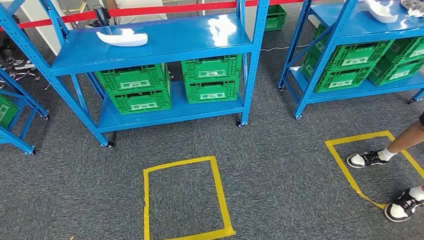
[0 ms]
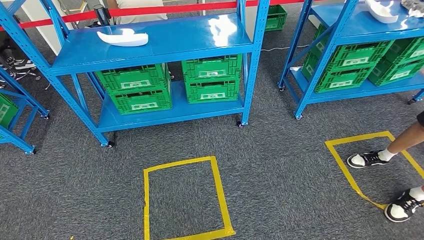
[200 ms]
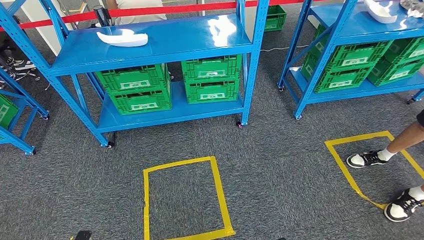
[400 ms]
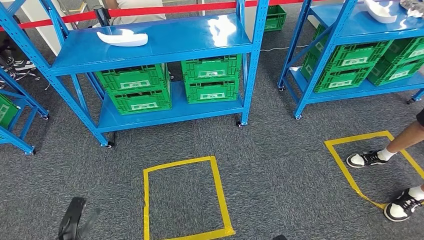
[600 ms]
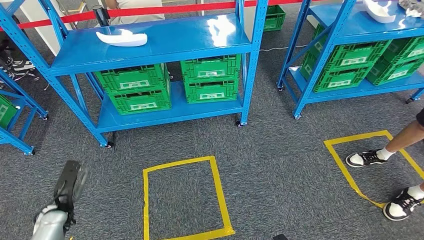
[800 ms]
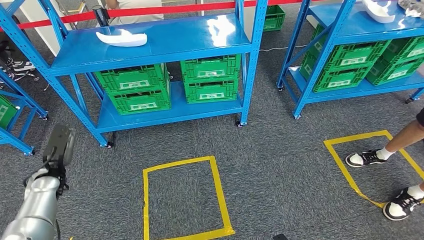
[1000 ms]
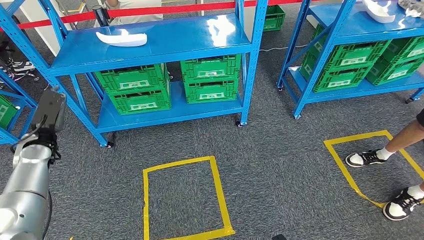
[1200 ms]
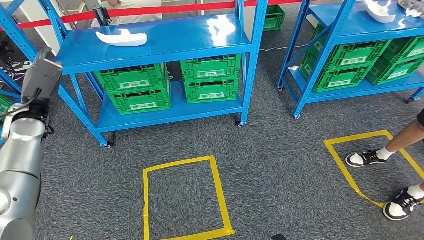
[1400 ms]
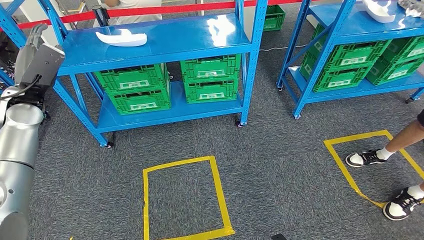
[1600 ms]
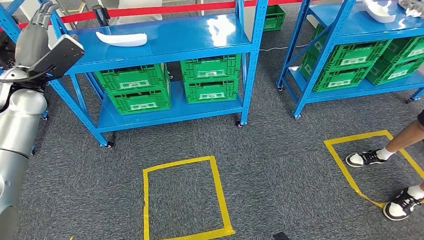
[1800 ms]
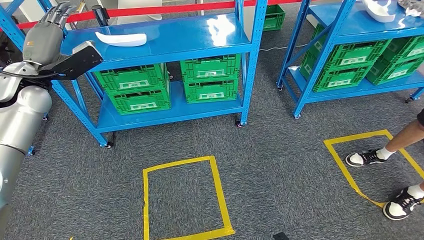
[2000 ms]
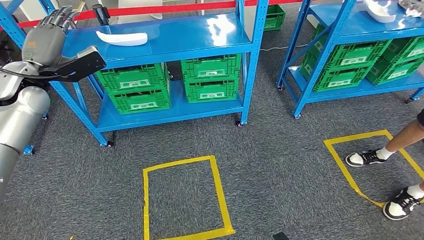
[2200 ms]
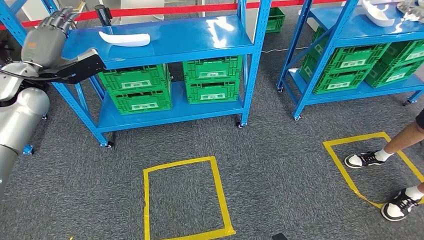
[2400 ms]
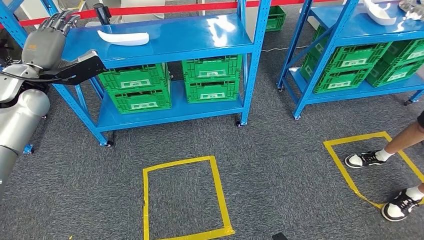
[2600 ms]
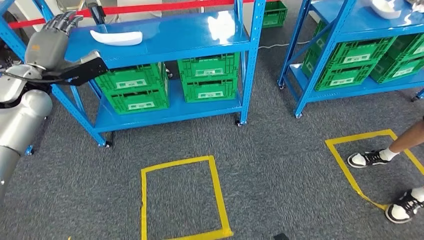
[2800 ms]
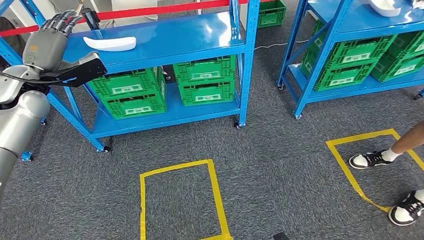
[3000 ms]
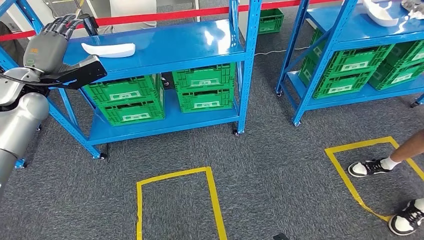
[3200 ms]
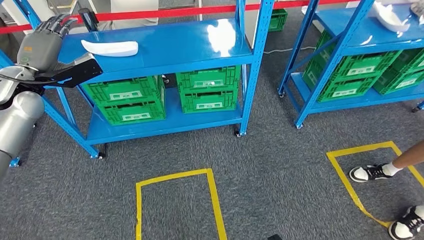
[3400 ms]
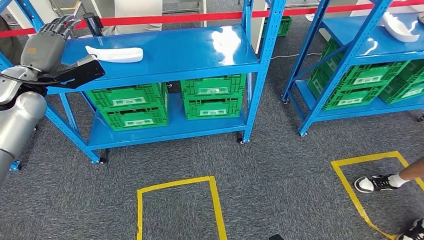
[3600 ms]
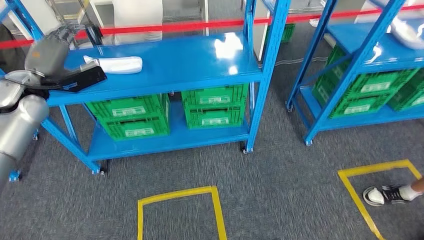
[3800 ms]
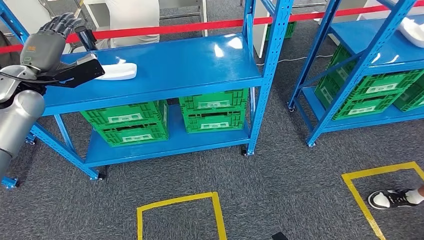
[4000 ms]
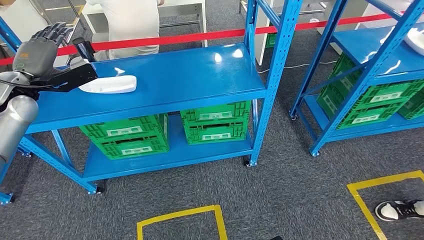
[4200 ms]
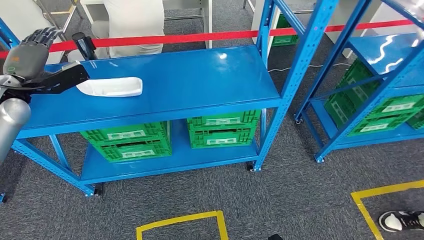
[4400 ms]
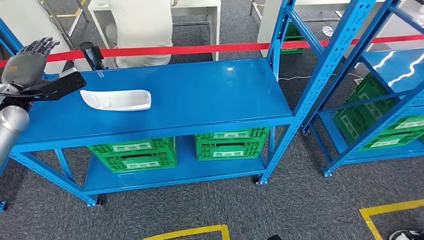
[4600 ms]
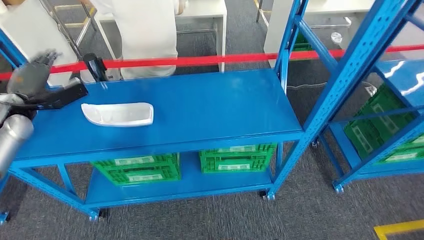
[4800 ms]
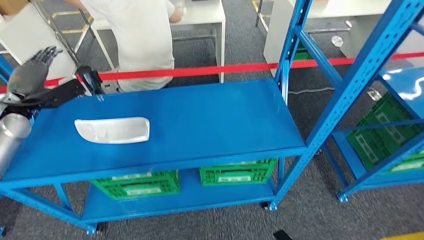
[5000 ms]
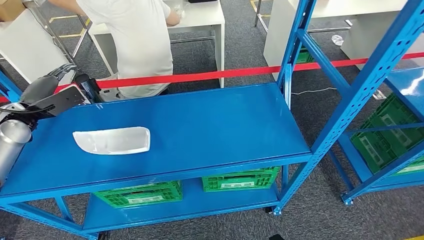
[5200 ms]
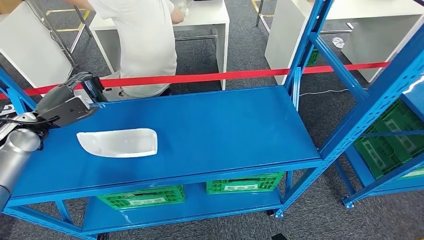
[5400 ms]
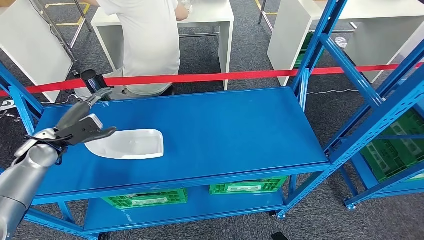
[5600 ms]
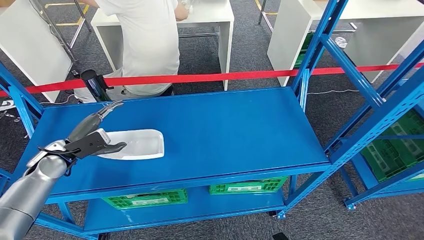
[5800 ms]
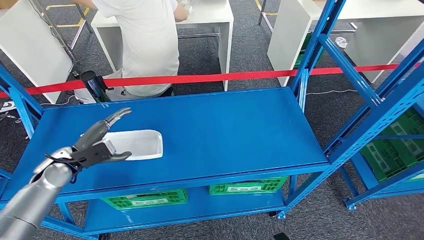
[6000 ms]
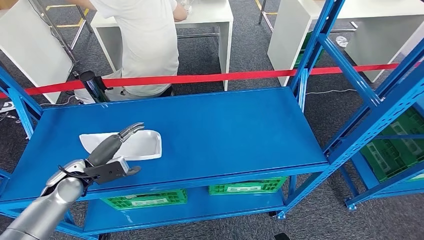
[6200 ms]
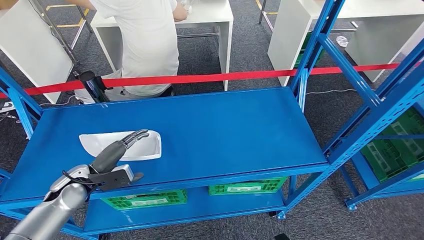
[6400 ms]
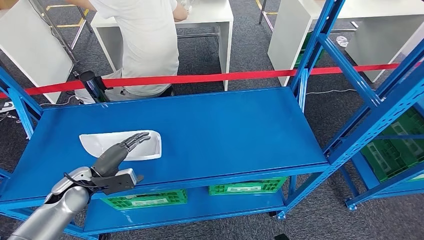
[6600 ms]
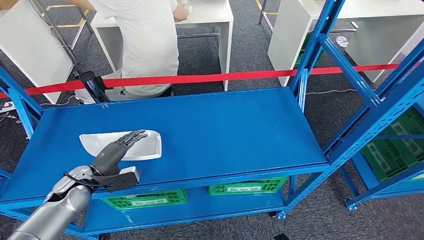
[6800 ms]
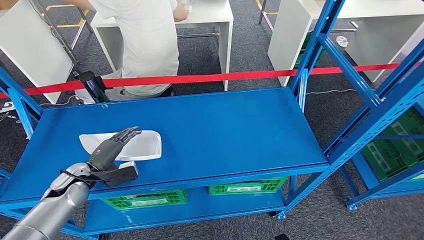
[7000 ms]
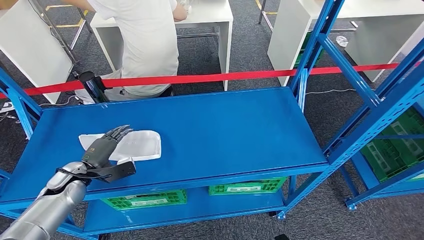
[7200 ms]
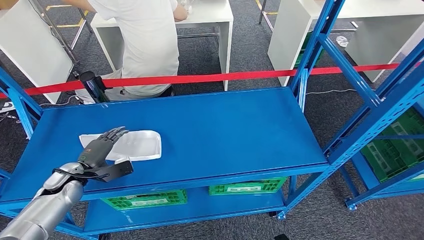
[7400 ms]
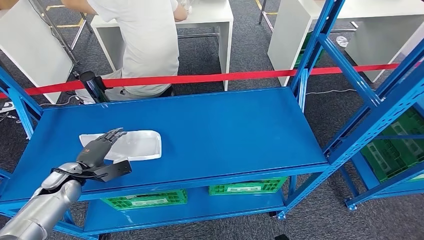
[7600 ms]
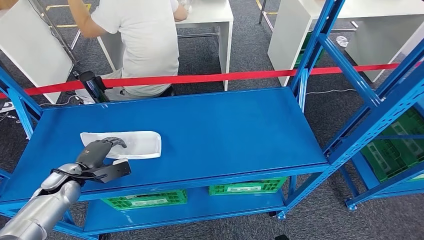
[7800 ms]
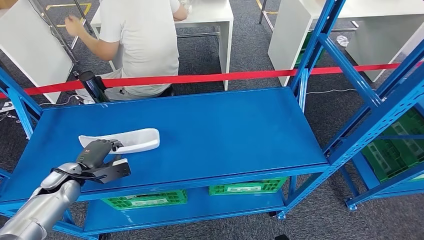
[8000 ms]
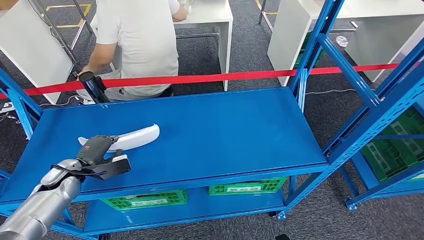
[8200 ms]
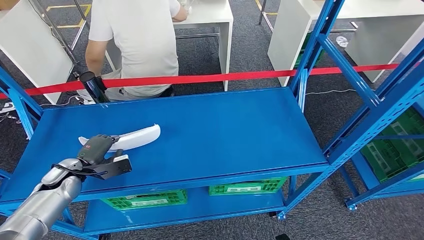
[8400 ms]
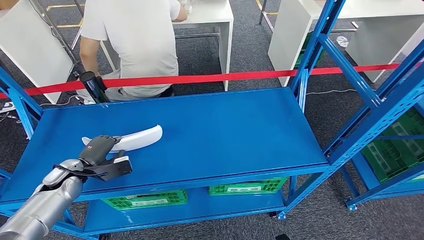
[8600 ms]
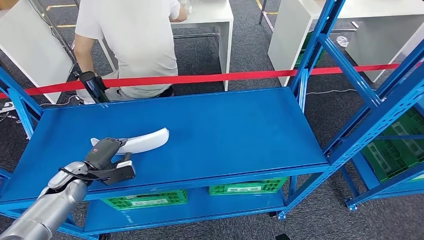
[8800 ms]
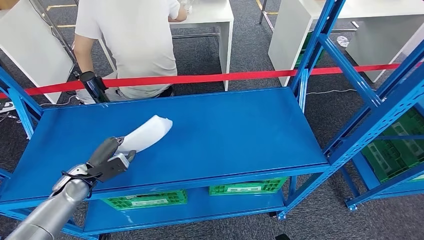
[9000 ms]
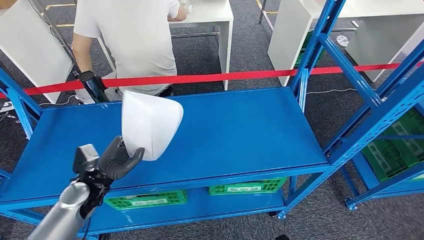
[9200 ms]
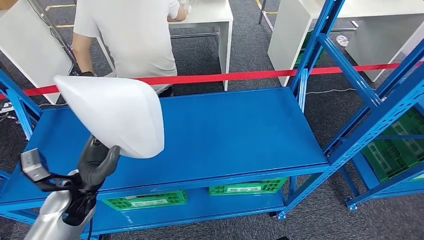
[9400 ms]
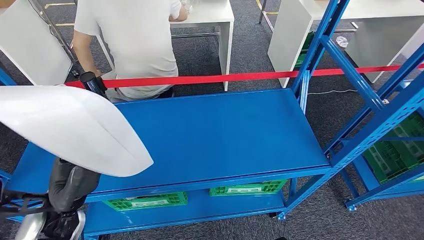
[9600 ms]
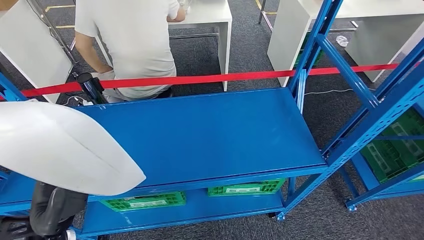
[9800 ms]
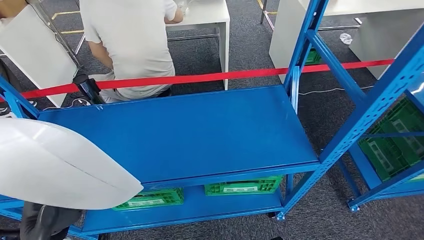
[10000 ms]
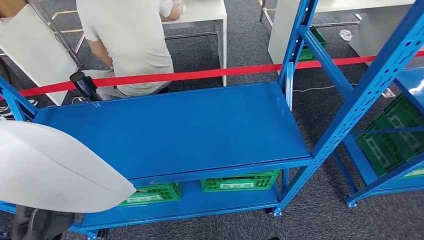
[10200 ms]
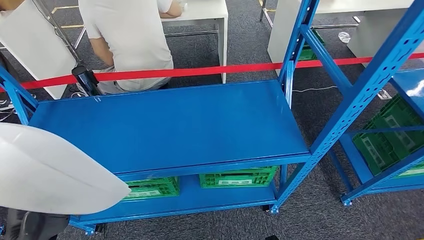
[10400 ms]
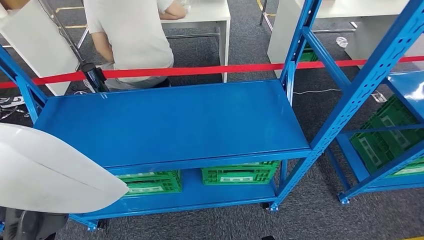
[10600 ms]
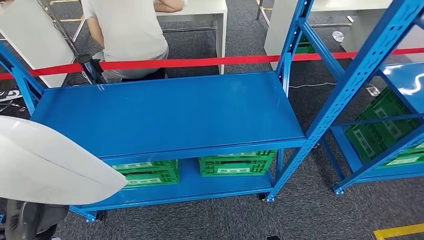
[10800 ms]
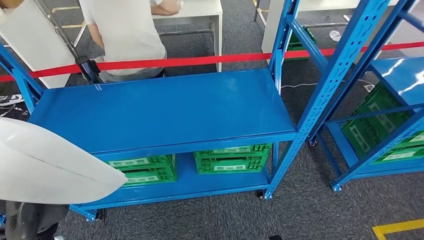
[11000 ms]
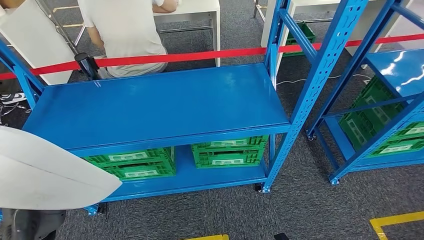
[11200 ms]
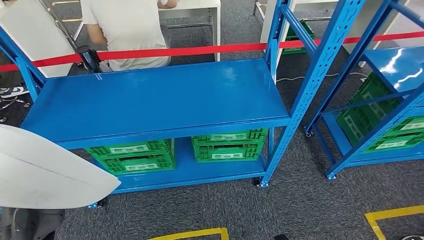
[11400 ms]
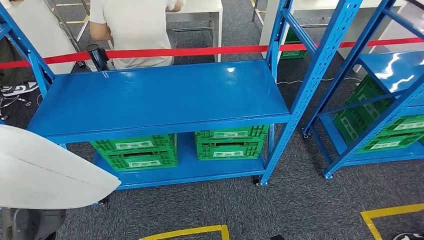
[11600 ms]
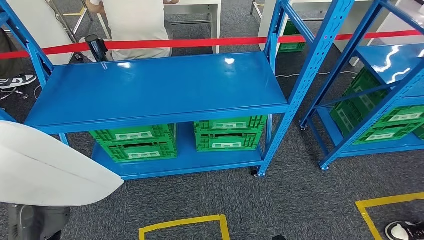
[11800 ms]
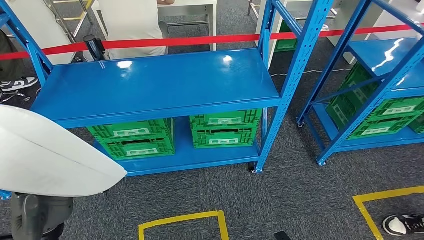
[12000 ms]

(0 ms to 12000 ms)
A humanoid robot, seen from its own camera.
Step, 0 ms - 11200 ms: Pick up the small component from the shelf.
6000 ms - 7600 ms: The left hand moves downward, roughly 5 cm.

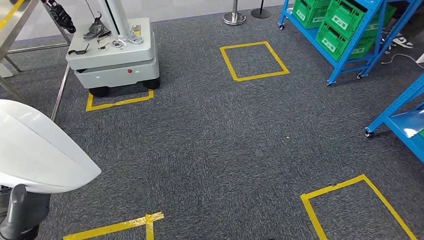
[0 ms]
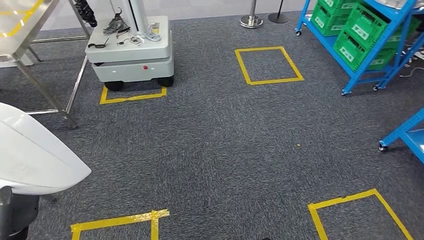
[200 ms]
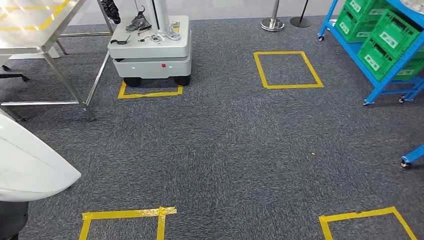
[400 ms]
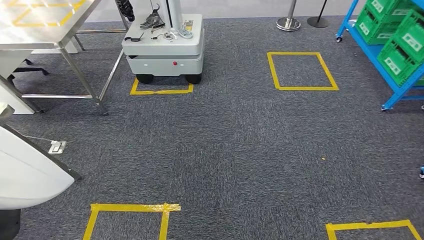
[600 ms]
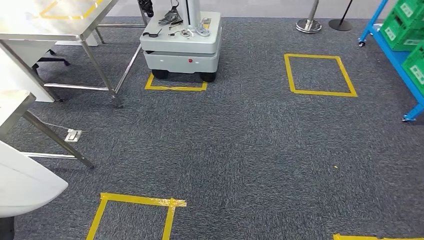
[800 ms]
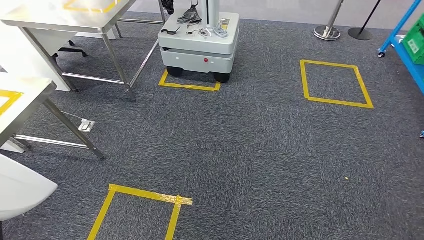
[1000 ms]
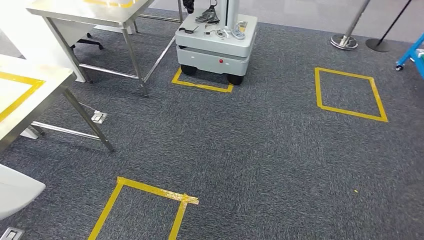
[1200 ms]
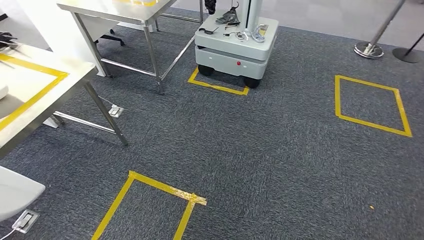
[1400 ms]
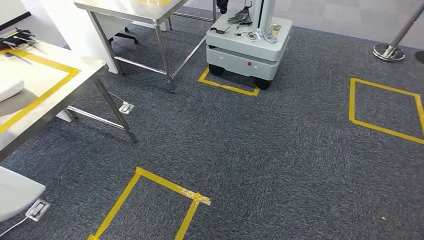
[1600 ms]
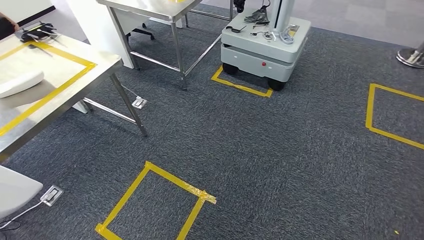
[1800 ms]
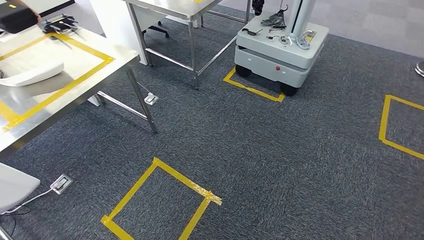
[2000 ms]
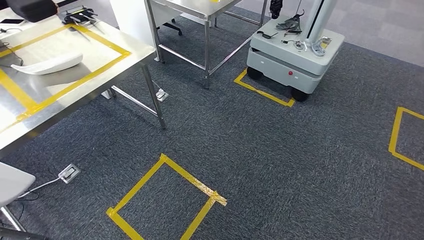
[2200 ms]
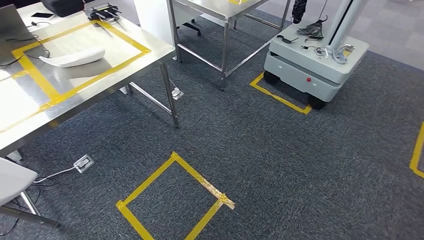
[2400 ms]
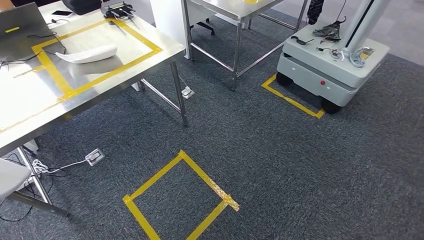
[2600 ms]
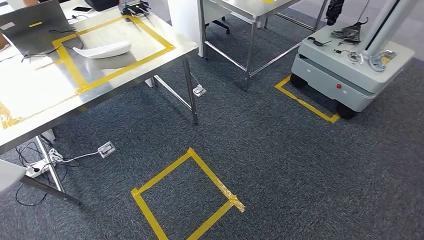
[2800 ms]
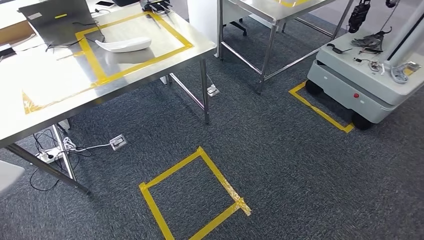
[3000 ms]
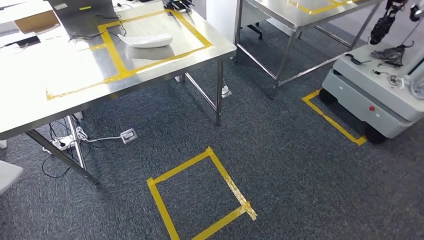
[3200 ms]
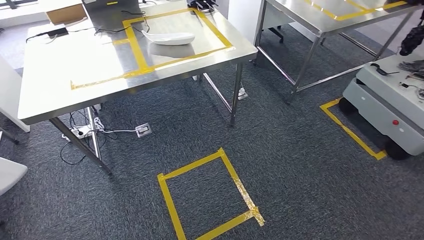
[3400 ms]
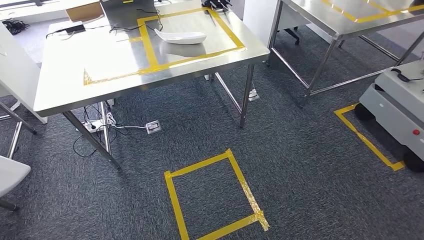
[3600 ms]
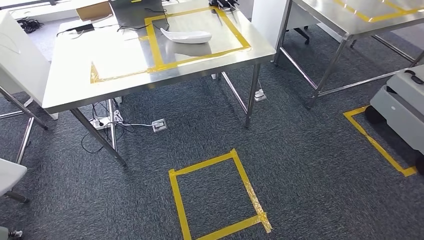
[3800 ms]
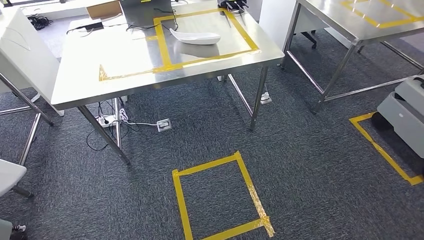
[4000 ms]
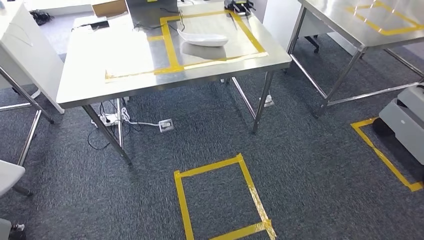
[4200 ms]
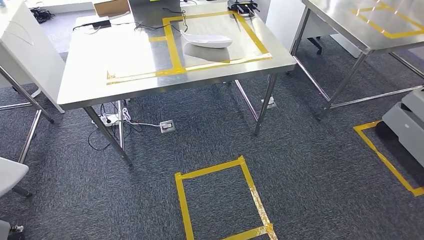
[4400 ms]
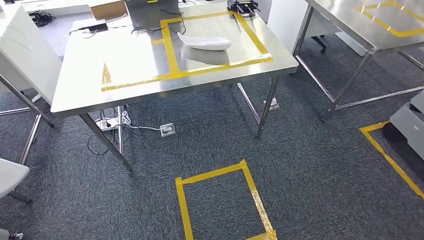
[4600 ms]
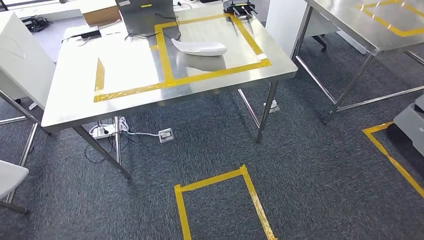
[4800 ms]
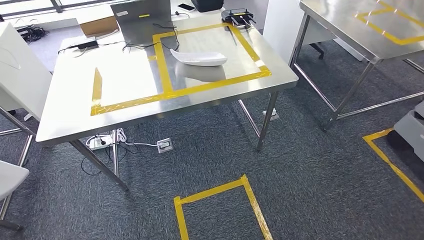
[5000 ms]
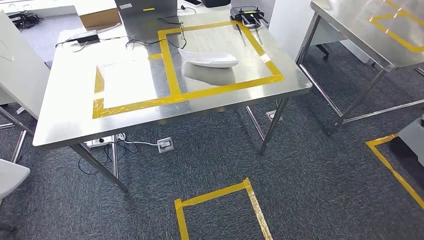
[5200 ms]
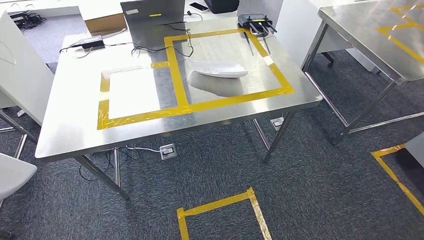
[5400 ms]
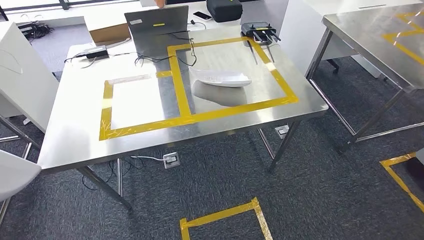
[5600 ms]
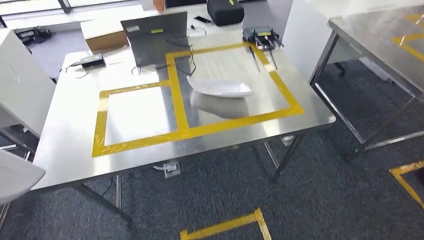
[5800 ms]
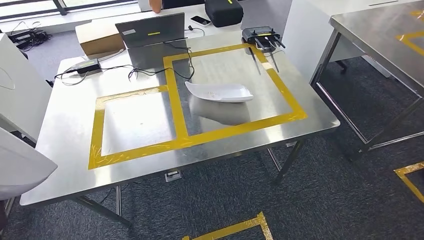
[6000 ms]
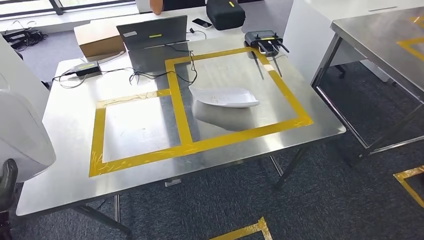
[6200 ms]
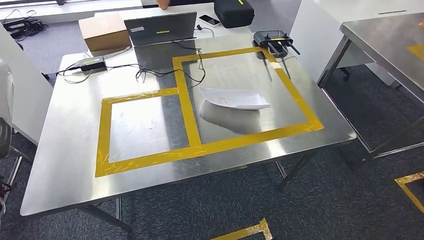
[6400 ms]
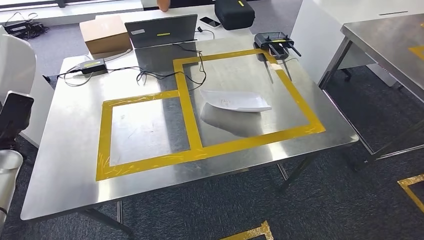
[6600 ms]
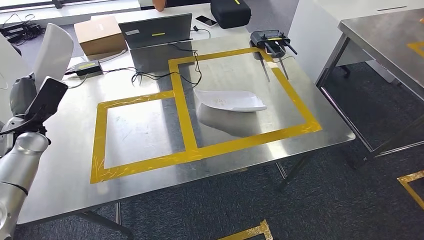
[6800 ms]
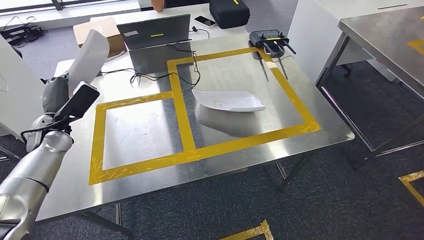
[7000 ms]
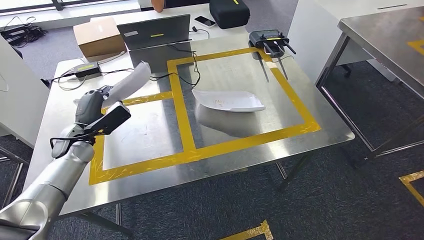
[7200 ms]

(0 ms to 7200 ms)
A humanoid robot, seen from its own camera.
Step, 0 ms - 5600 ms: Move the small component to the workbench.
